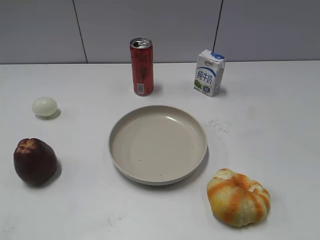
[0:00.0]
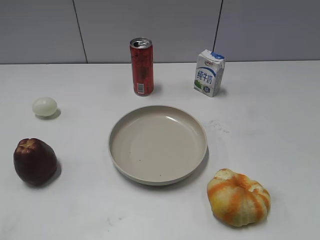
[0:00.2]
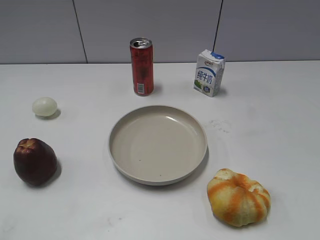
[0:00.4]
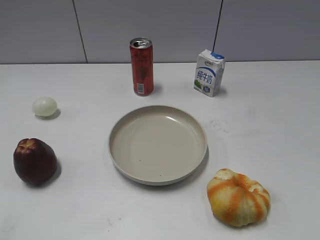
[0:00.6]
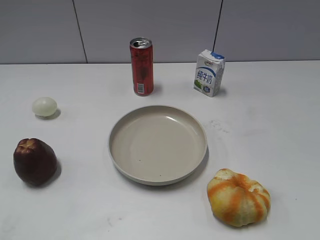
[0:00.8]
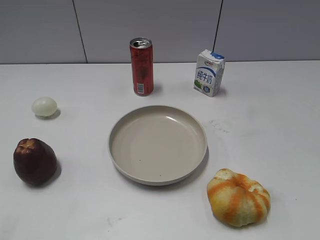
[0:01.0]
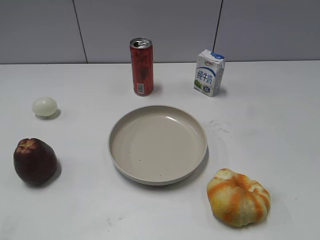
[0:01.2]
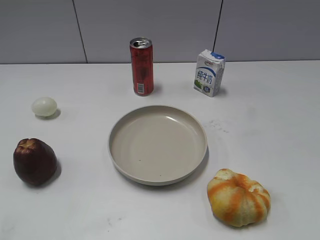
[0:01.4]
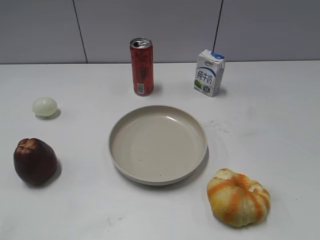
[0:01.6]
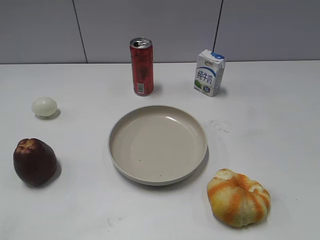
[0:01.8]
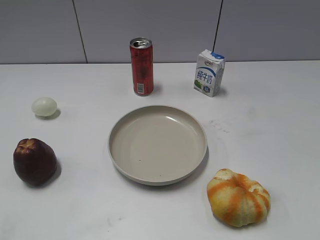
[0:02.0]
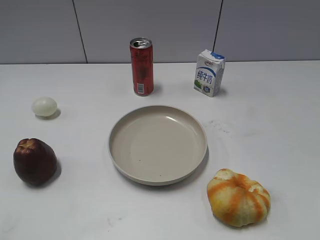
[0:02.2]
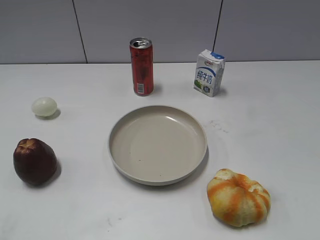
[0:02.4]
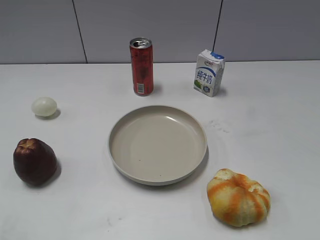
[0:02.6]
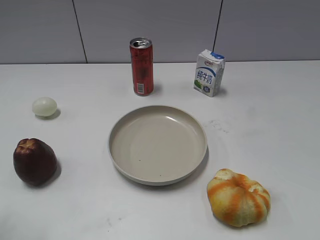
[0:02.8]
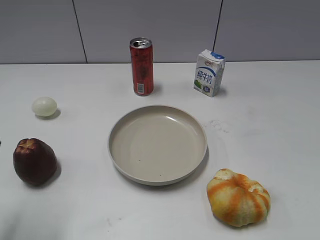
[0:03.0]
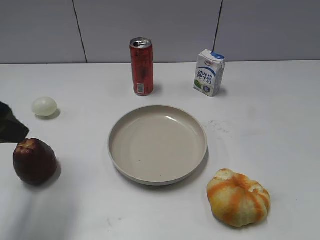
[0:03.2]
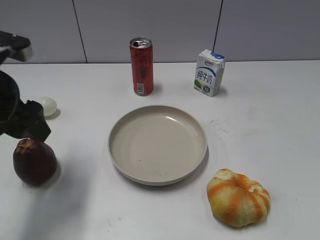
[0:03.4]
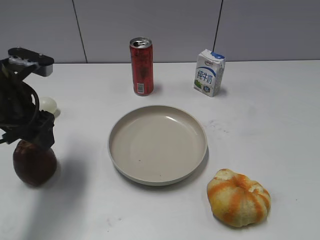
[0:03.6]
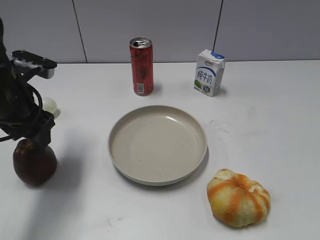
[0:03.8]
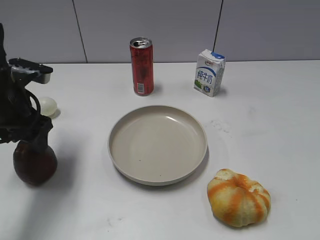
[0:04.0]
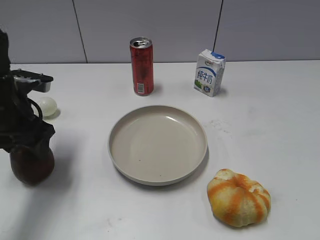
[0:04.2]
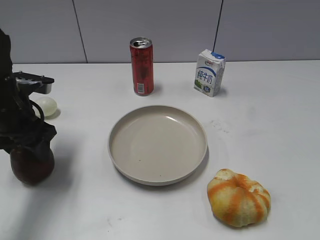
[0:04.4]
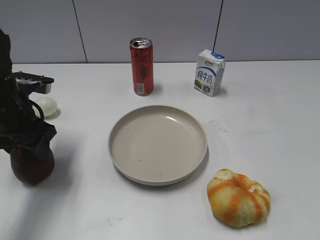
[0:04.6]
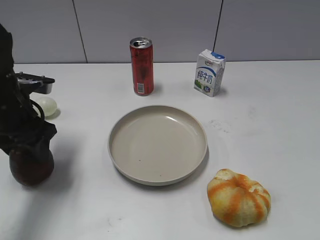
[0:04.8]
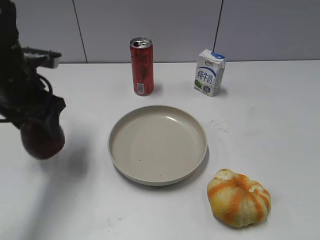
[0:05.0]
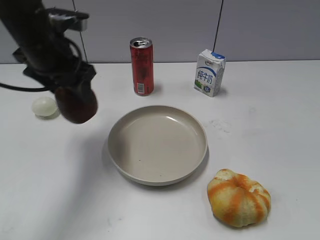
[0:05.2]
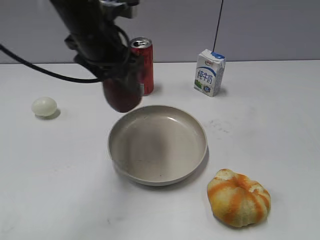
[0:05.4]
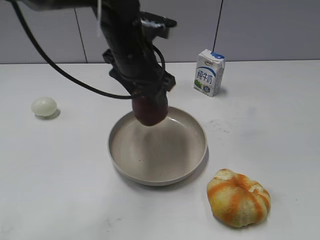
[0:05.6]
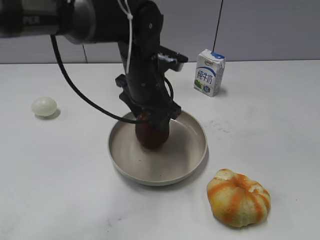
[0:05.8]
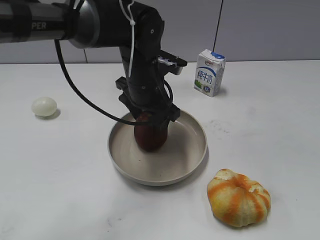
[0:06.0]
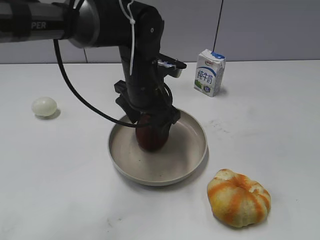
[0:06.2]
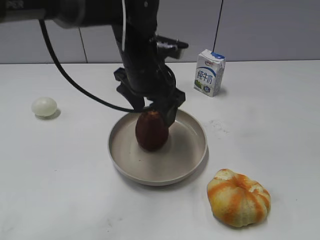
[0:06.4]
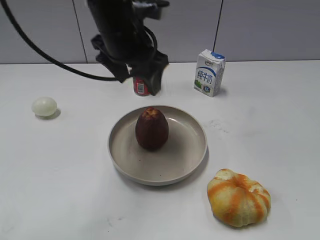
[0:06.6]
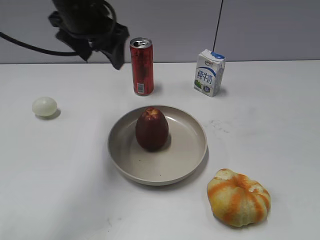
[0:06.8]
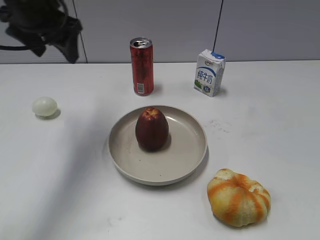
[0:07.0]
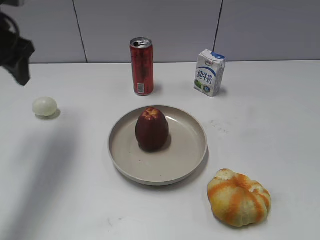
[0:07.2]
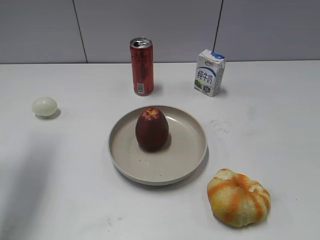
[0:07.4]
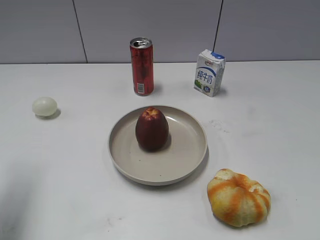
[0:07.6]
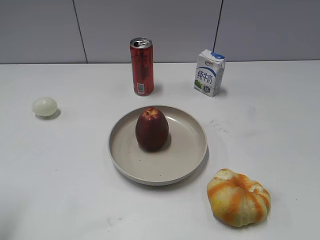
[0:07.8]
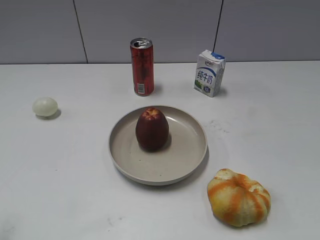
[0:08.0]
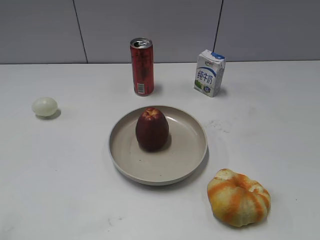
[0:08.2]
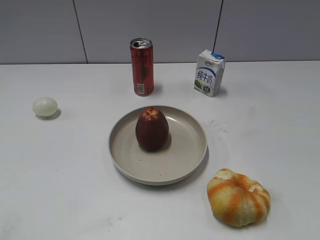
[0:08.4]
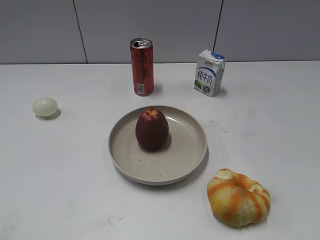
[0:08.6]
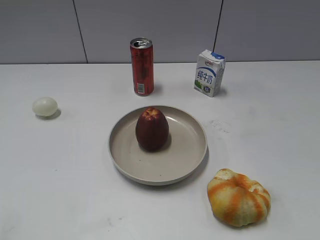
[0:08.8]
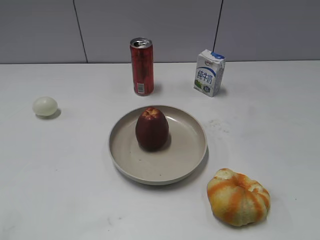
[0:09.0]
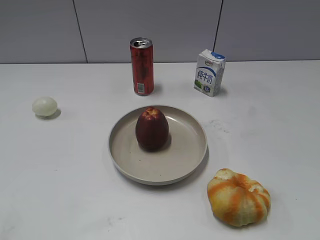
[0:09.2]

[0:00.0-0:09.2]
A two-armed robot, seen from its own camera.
Step, 0:03.0 to 0:04.6: Grasp the apple with left gripper.
Step, 0:04.8 to 0:06.4: Place the apple on the plate with left gripper.
0:01.6 to 0:03.0: The left gripper heads forward and to the right, covering approximately 15 cm, and opens.
0:03.0 to 0:04.6: The left gripper moves forward and downward, approximately 20 cm, and closes its fingers.
0:04.6 to 0:06.2: The left gripper moves to the right, about 20 cm, and opens up.
0:06.2 to 0:07.6: The left gripper shifts roughly 25 cm to the left, and closes its fingers.
0:07.6 to 0:09.2: The left gripper goes roughly 25 cm backward.

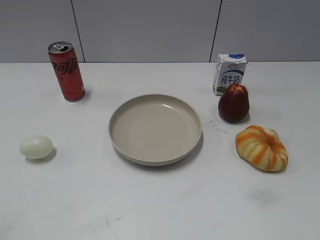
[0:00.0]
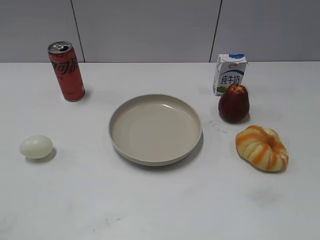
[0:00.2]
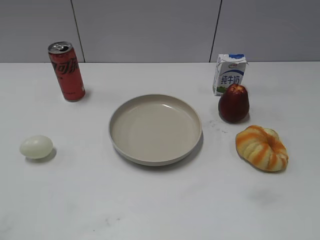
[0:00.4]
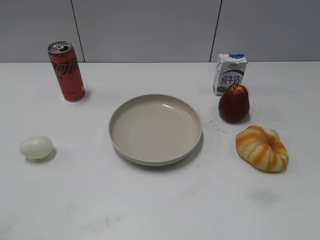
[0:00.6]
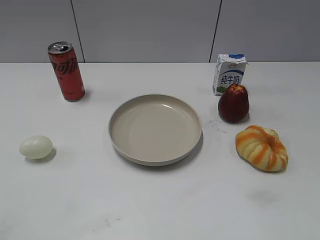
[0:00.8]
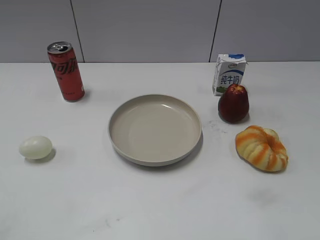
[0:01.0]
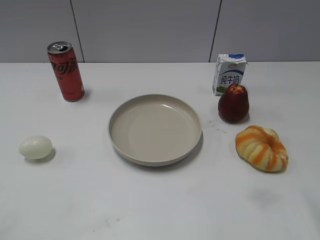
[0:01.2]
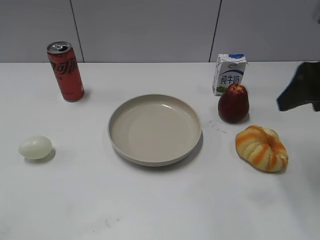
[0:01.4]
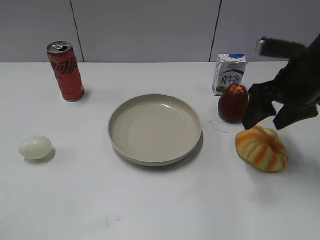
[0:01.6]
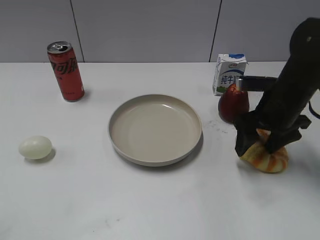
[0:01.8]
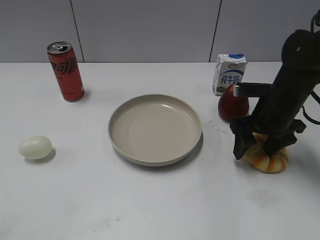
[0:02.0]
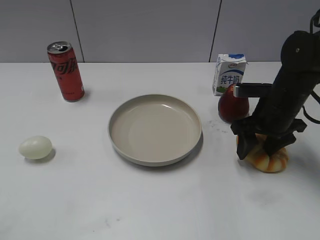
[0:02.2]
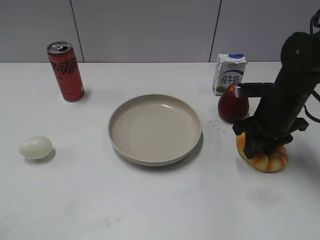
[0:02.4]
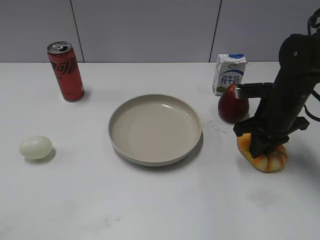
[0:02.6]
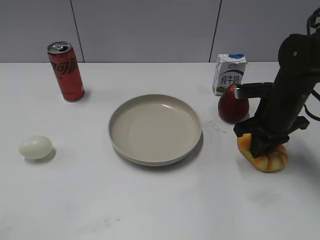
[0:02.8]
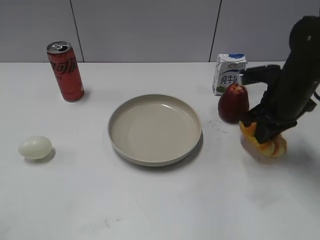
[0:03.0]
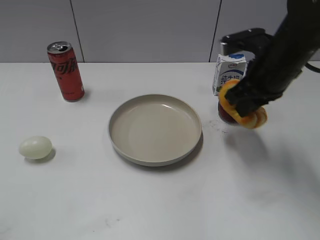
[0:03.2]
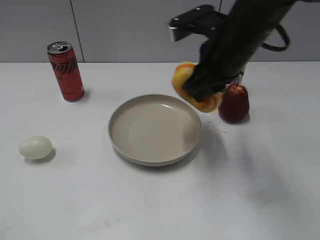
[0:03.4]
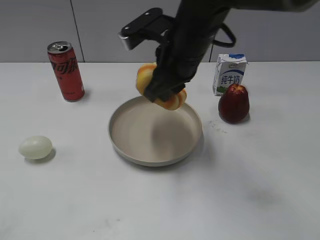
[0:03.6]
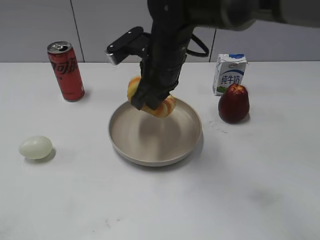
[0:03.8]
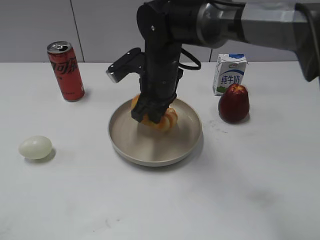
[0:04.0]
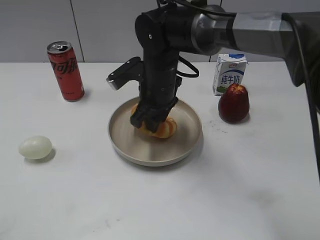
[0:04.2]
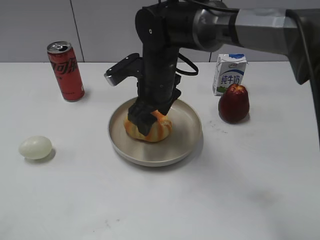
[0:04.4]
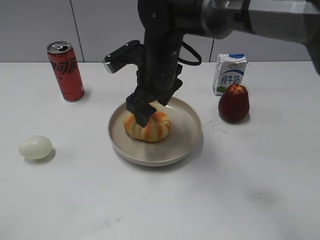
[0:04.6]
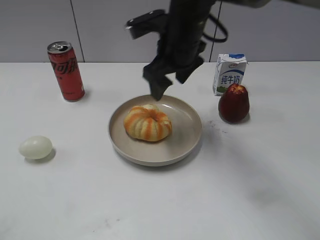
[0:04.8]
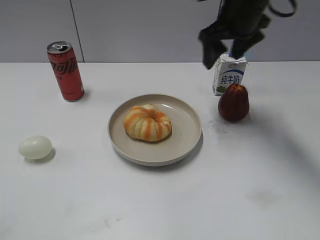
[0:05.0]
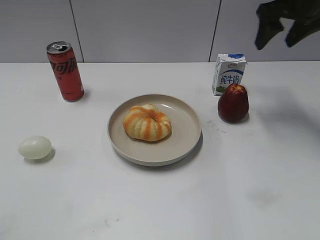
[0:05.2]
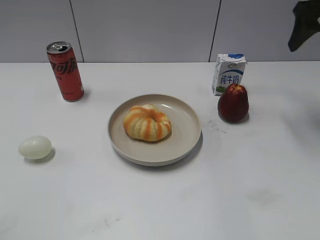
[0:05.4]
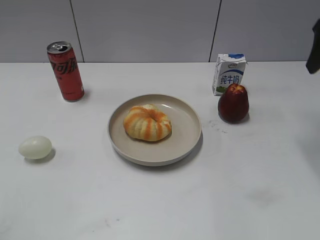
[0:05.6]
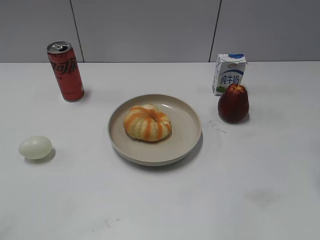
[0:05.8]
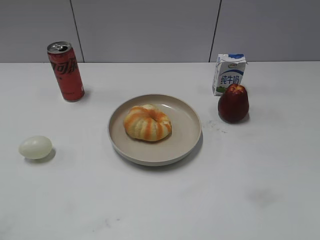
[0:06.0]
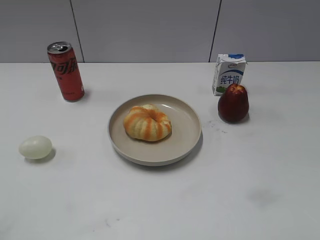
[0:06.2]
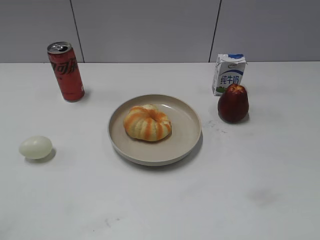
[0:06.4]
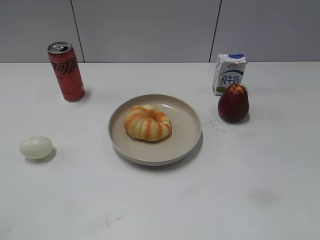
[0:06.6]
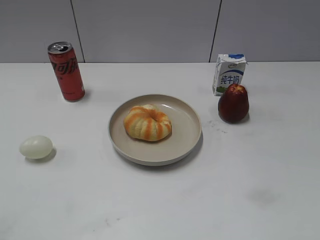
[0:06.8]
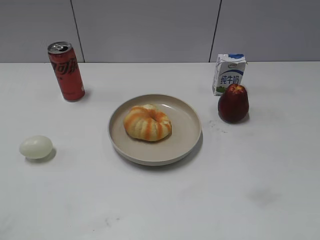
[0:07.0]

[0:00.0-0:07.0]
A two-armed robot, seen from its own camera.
Step, 0:00.0 to 0:02.6: Grasp the round bread with right gripper.
Step, 0:02.8 to 0:04.6: Place the round bread on the plate with right gripper.
0:01.4 to 0:02.8: The right gripper goes approximately 15 cm downward and forward, and closes up.
0:02.8 to 0:04.2: The right gripper goes some 20 cm to the left, and opens its fingers.
0:04.2 to 0:05.6: The right gripper is displaced to the right and upward by roughly 35 cm, and opens up.
0:05.6 to 0:07.0: The right gripper moves backward, some 35 cm.

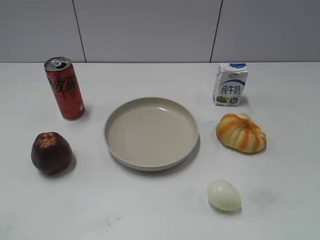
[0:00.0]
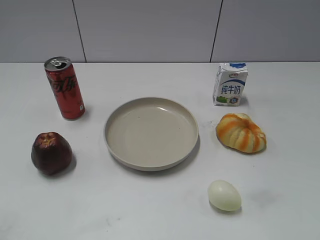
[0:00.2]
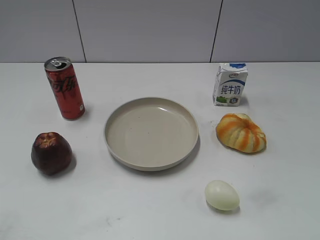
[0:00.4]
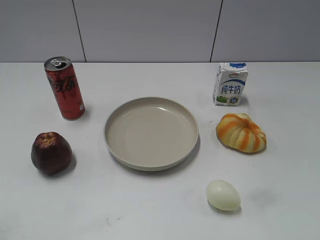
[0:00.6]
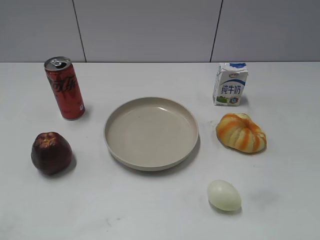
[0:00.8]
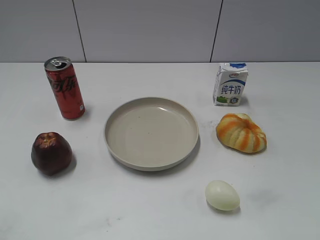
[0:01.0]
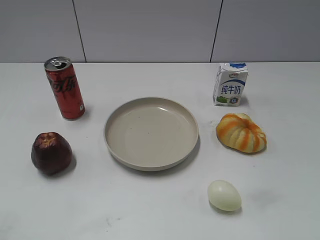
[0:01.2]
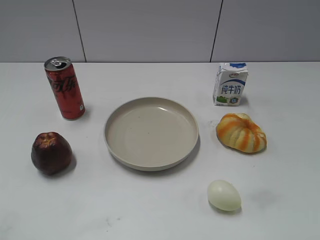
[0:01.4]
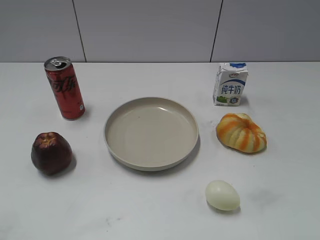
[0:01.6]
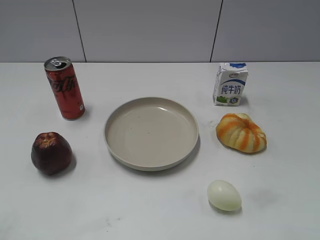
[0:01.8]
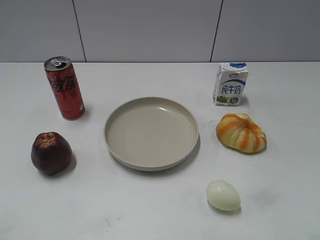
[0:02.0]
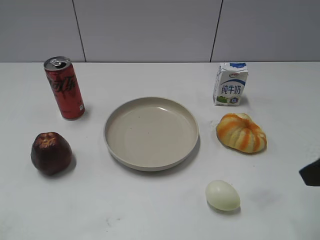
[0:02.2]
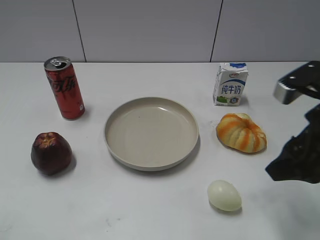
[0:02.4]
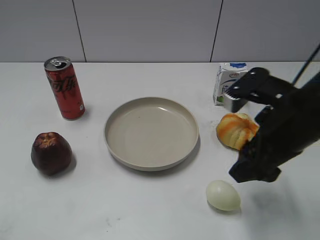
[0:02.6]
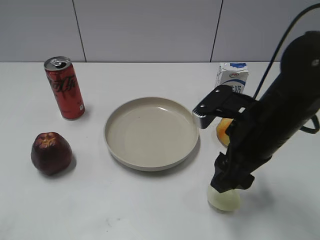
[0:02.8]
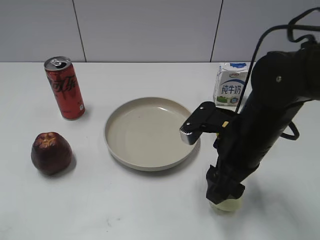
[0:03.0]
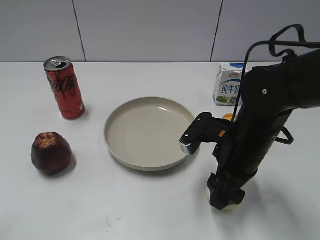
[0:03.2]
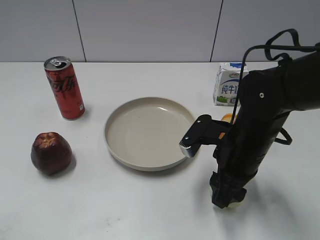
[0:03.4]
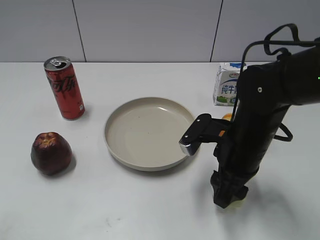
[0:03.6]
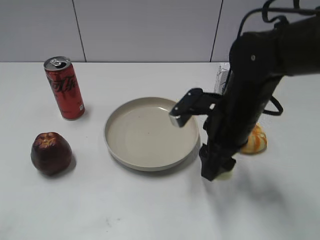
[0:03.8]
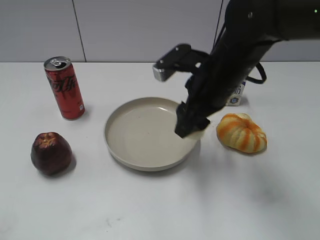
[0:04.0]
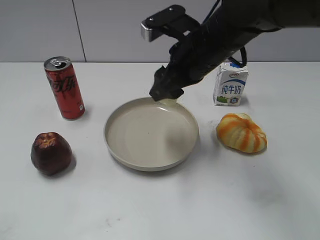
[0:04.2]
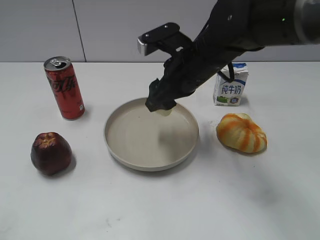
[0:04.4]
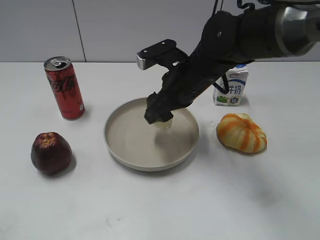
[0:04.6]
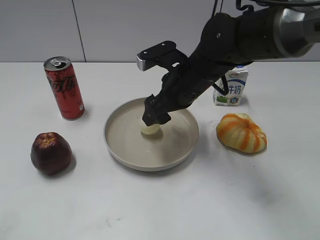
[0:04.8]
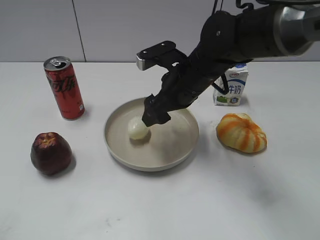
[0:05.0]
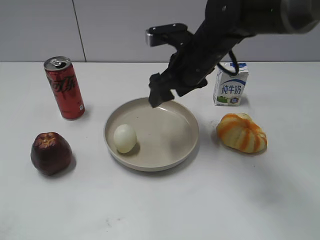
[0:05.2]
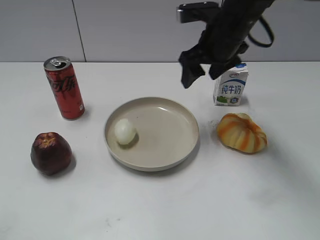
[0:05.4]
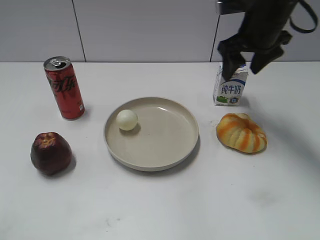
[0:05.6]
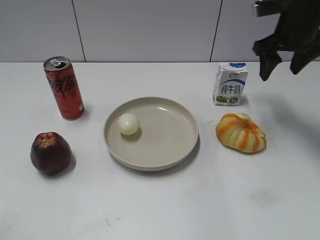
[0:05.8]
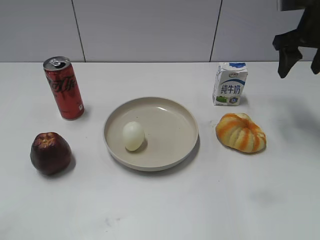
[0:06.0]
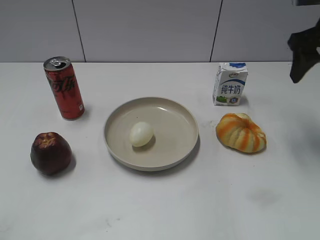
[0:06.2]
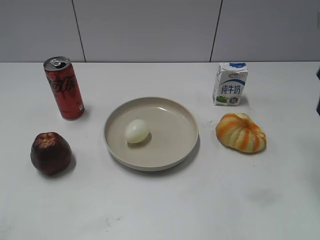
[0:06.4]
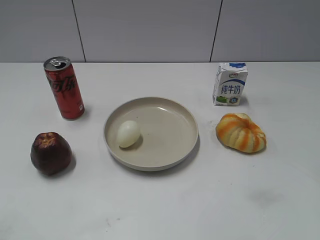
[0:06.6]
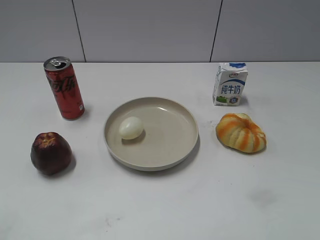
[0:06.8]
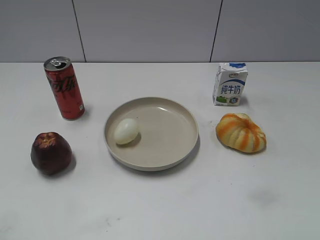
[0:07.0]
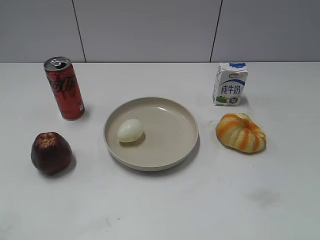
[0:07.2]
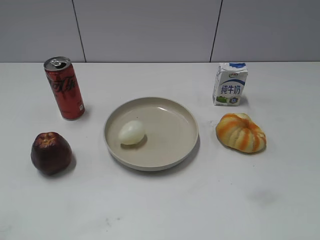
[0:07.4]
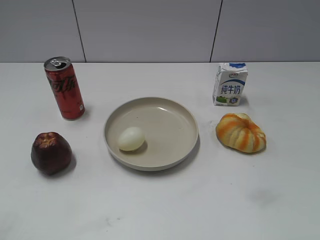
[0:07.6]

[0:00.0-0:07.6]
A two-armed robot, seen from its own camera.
Step, 0:01.2 to 0:03.2: Grasp the egg with right gripper.
Step, 0:03.6 to 0:05.0: Place the egg on the plate with right gripper.
0:01.6 to 0:03.0: The right gripper heads forward, to the left and downward, covering approximately 30 cm.
0:03.0 to 0:04.6: The right gripper travels forward and to the left by about 15 cm, travels upward and back again, about 10 cm each way, and closes, then opens again.
0:04.6 to 0:06.0: The right gripper is displaced to the right and upward by roughly 25 cm.
0:06.0 to 0:07.6: The right gripper shifts some 40 cm backward, and closes up.
